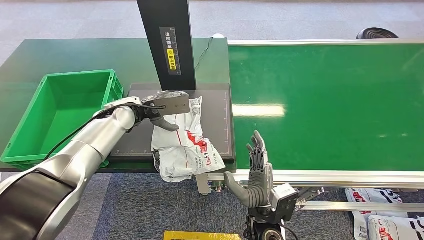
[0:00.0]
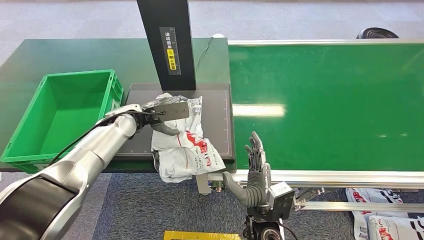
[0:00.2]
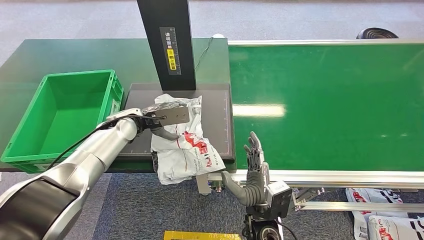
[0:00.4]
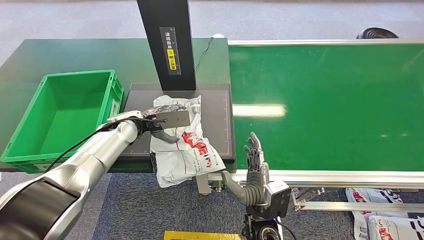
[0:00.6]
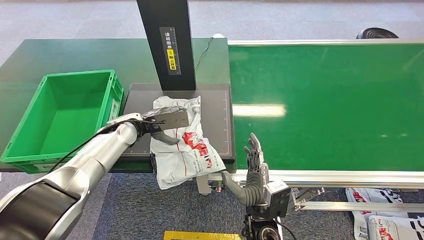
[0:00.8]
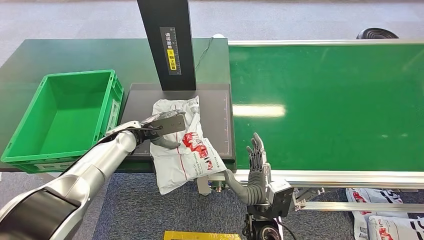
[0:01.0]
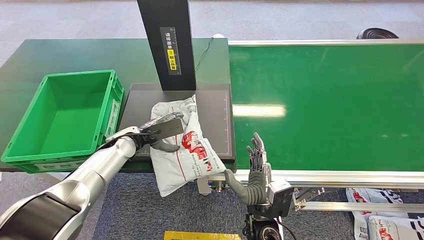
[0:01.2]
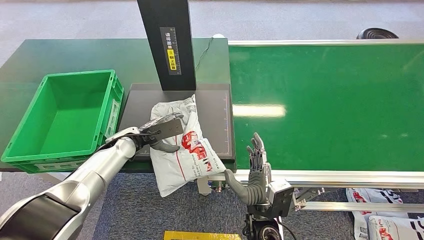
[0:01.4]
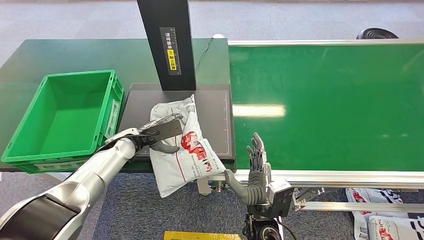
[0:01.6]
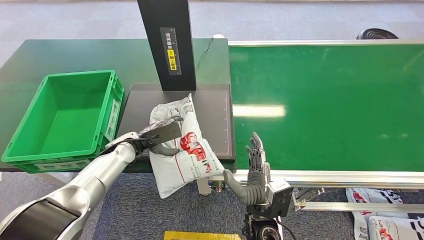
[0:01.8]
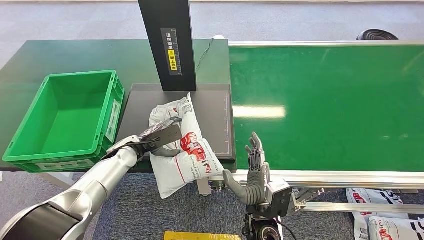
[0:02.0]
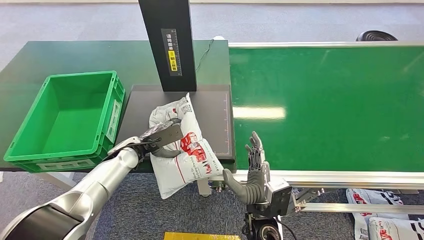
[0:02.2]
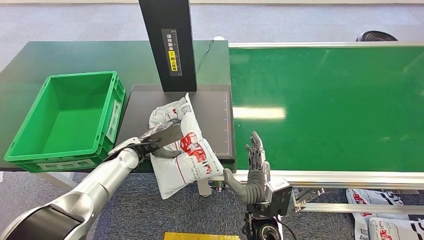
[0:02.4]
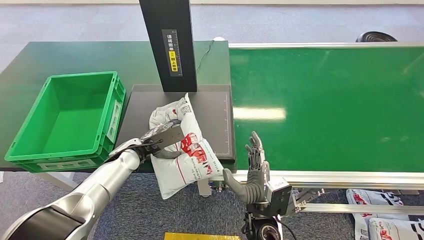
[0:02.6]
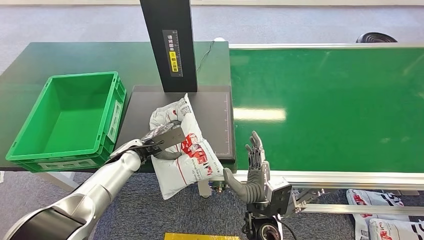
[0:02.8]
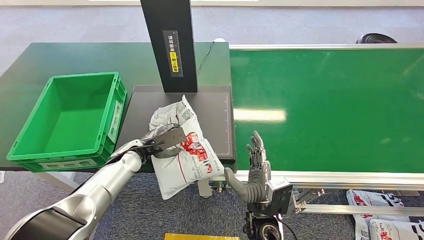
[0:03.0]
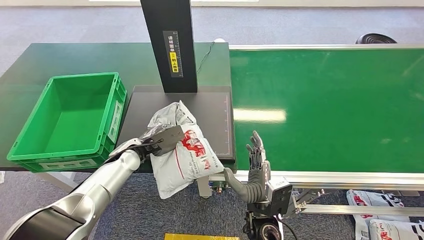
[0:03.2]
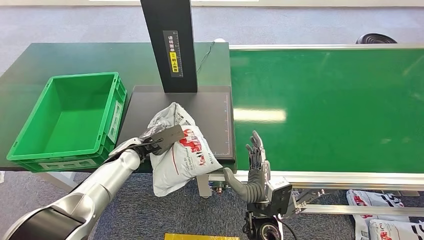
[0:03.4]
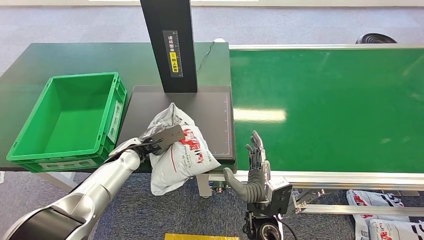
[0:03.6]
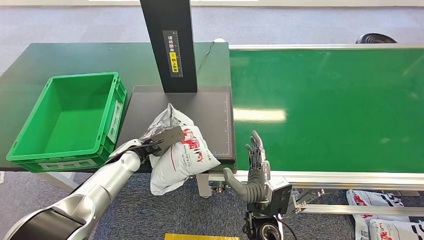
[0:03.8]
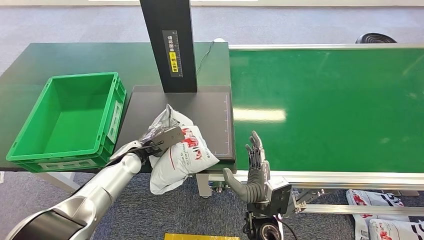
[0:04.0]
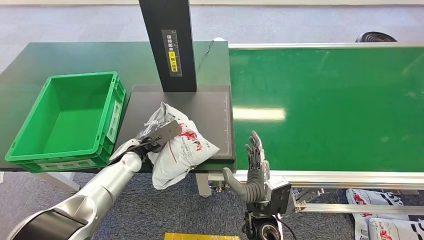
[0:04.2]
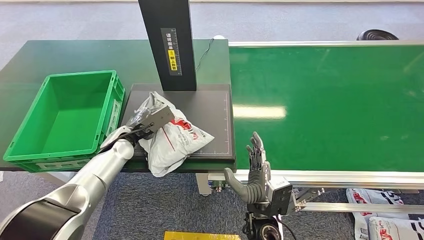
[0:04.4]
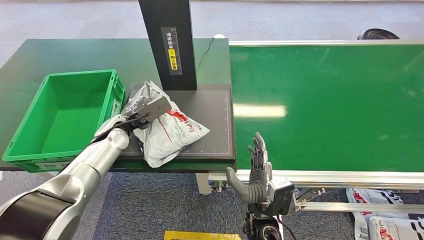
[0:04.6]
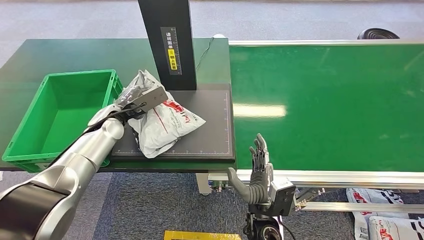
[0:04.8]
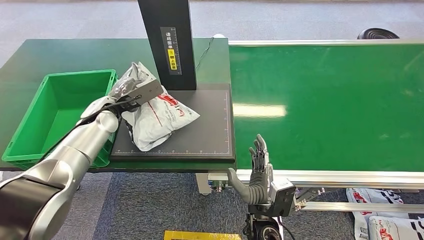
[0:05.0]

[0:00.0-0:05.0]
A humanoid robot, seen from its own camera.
Step, 0:00.0 to 0:05.0: Pick up the package from the inbound machine.
0:00.0 to 0:01.6: The left hand heads downward, covering approximately 10 cm.

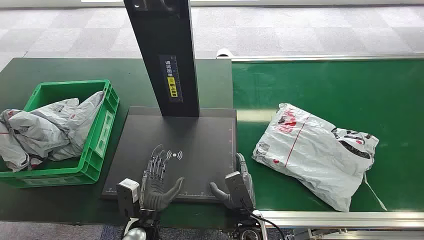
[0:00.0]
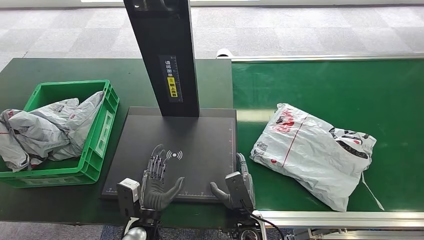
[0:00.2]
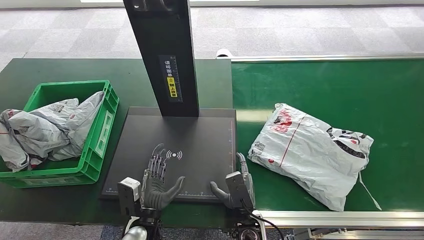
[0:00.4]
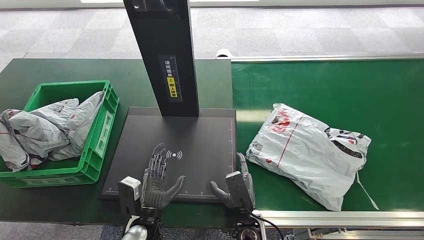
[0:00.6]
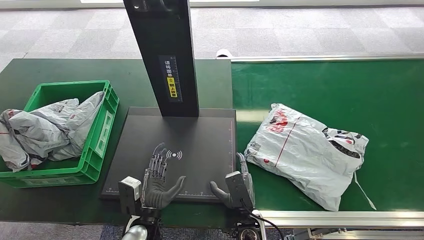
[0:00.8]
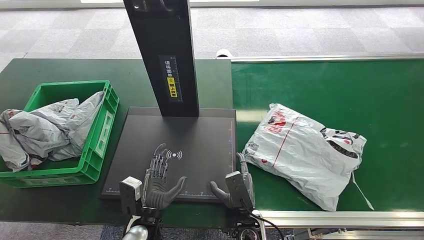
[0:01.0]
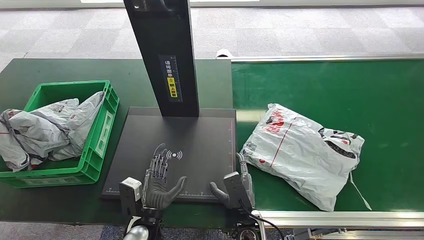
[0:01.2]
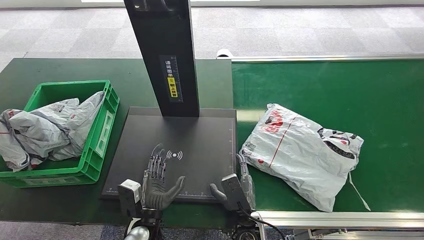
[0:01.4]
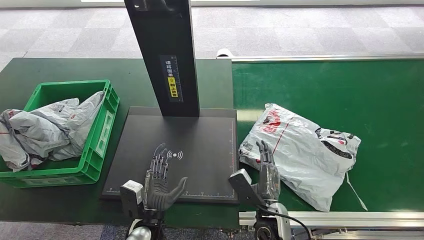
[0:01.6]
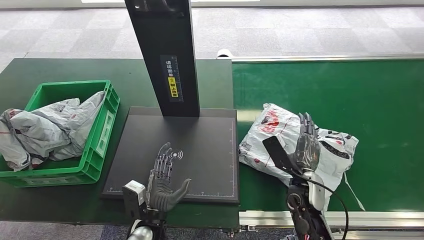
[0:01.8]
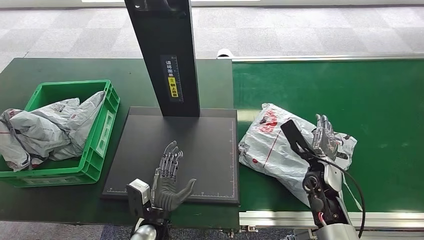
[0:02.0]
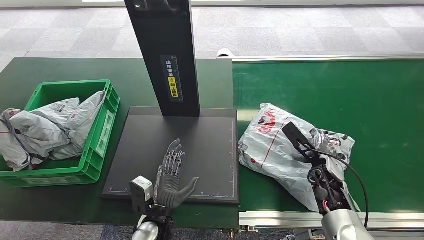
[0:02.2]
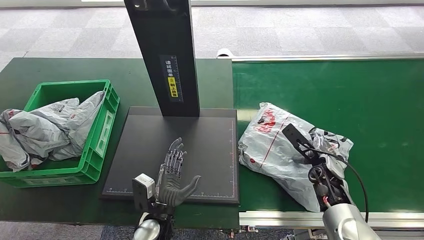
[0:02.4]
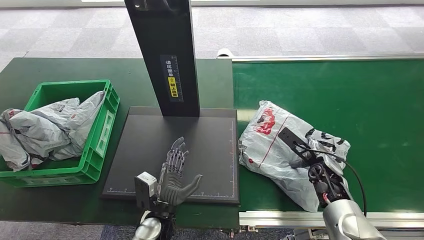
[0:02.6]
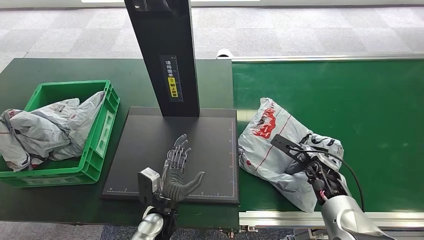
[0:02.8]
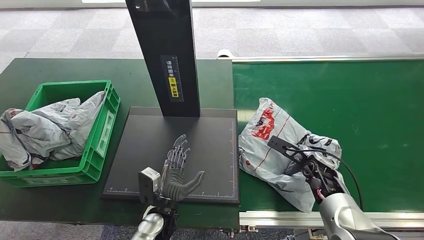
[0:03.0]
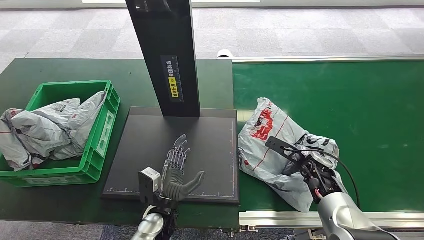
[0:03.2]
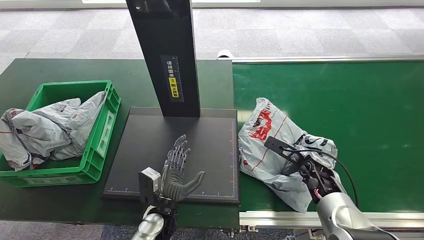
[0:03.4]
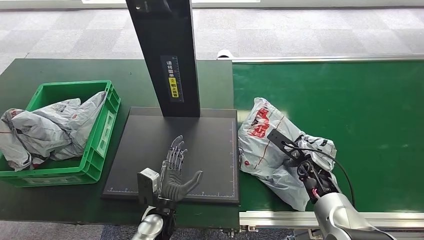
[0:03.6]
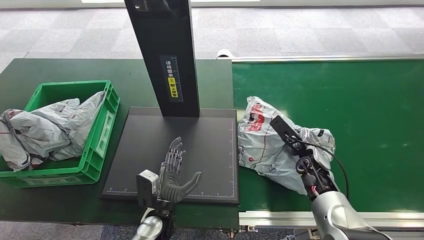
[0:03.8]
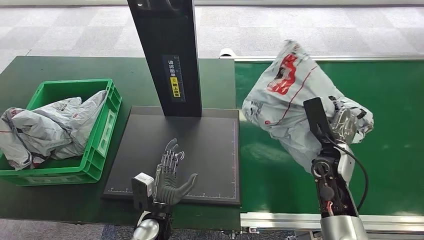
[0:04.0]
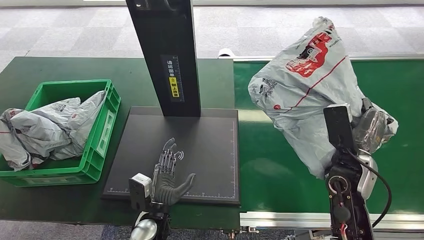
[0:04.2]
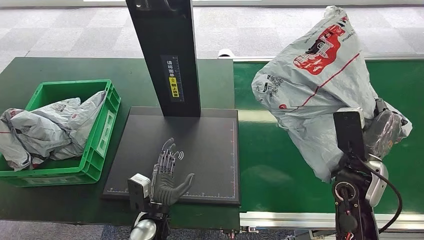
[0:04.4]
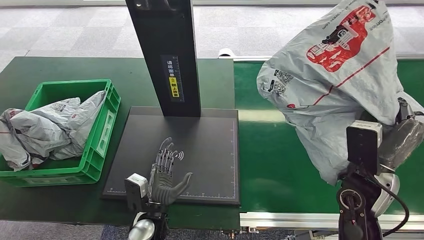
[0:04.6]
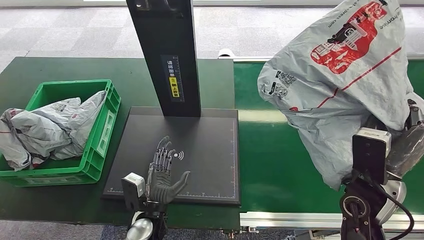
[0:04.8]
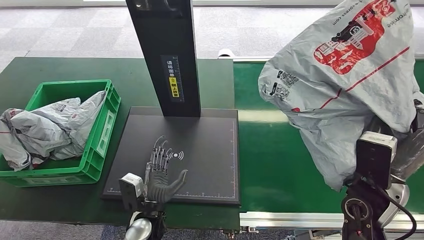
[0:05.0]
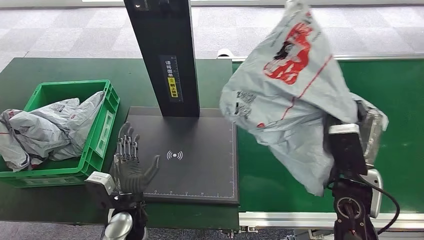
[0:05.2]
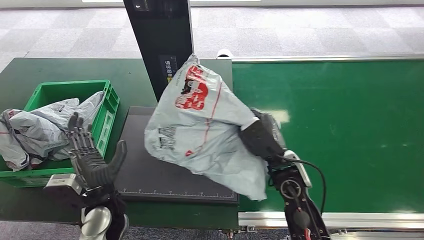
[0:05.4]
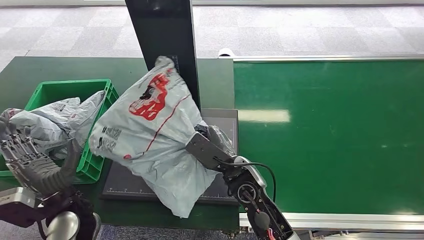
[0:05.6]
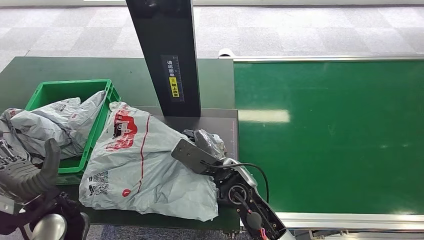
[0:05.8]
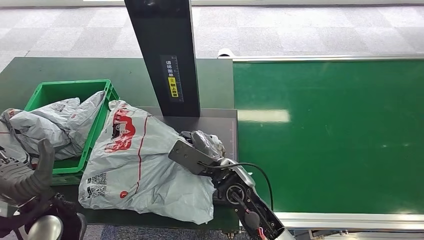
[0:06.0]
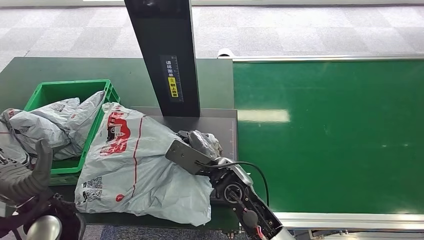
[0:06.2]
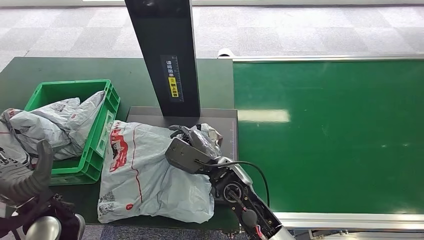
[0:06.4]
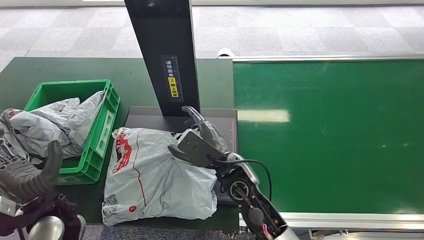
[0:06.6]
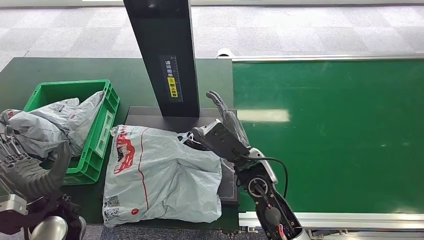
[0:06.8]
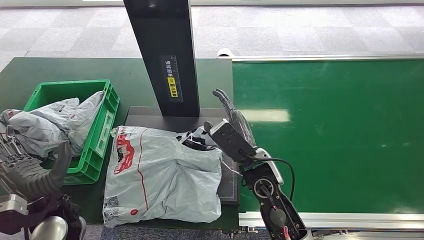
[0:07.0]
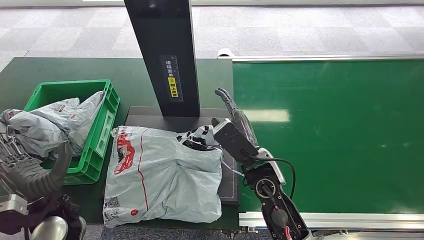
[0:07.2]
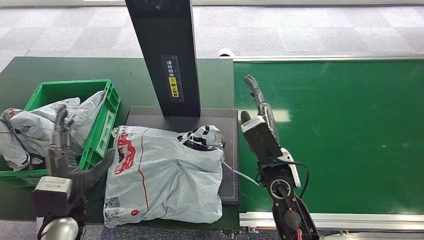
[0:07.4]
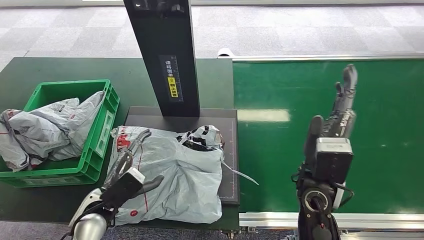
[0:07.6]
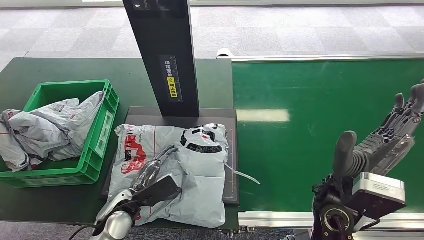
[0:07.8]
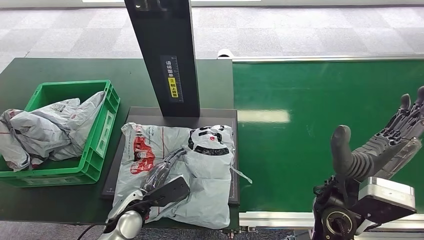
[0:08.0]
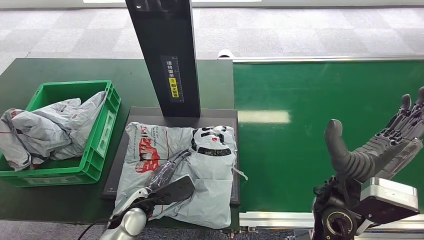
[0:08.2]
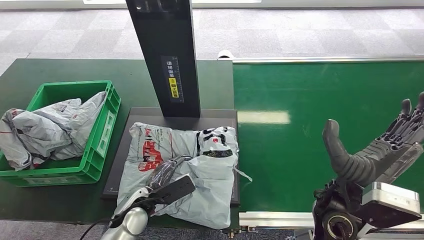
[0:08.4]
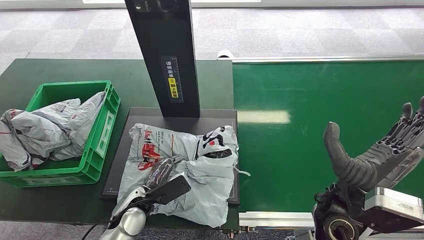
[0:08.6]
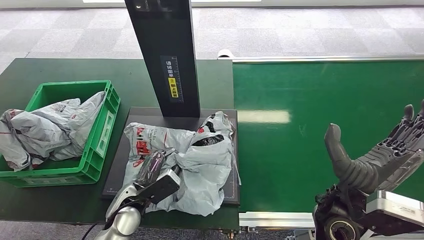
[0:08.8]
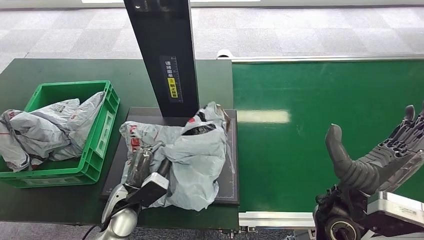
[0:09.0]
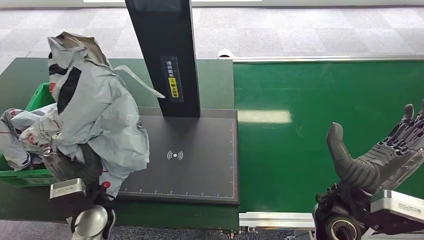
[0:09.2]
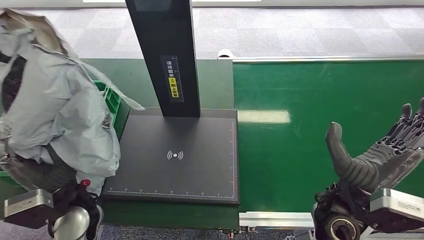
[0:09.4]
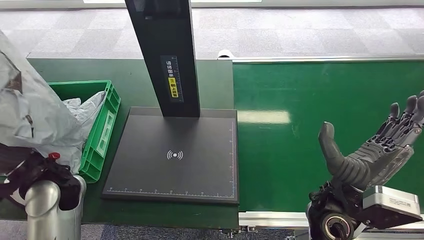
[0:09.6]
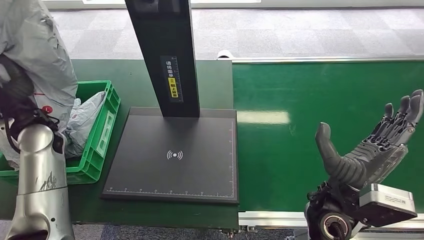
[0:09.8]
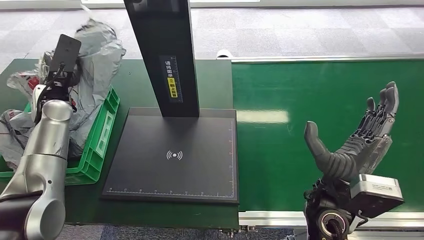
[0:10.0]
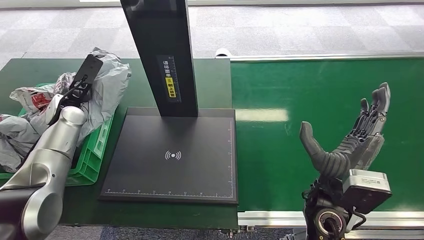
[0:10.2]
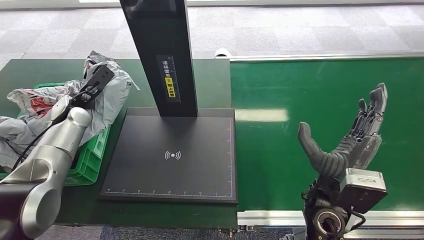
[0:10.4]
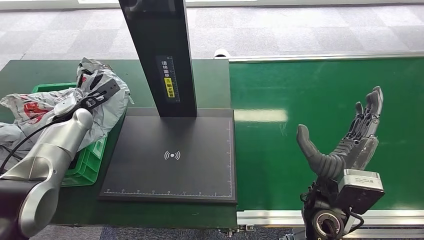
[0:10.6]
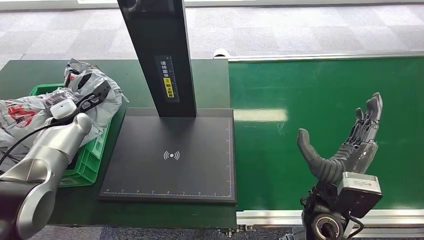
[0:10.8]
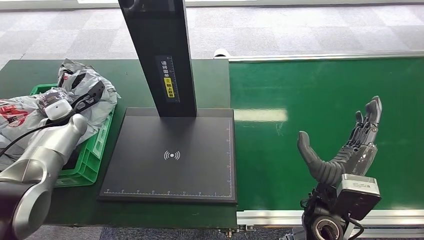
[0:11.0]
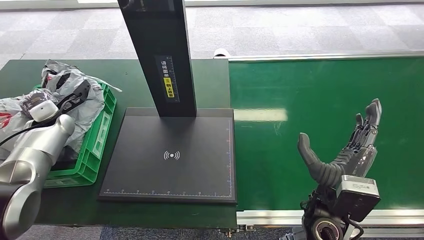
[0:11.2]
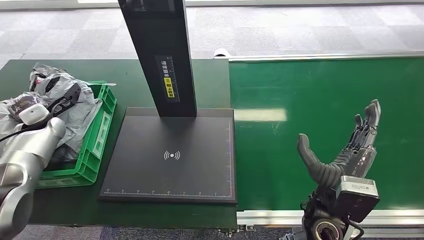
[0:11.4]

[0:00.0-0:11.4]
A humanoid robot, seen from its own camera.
Step, 0:00.0 to 0:03.8: Pick up the package from the conveyor belt.
Step, 0:04.0 to 0:07.6: Place the package onto the inbound machine.
Step, 0:07.8 to 0:09.6: Pick up the package from the inbound machine.
Step, 0:09.8 to 0:11.2: Place the package into the parcel locker.
0:01.4 to 0:02.8: The right hand is displaced to the right and forward by about 30 cm.
